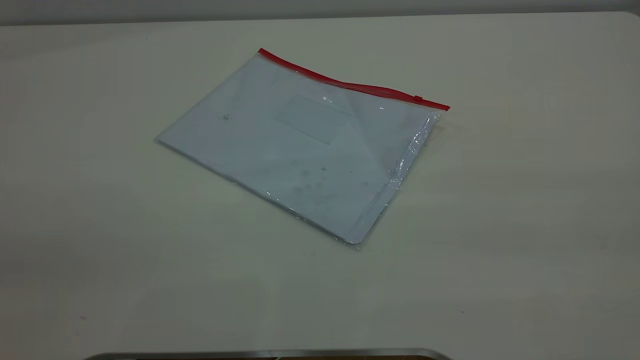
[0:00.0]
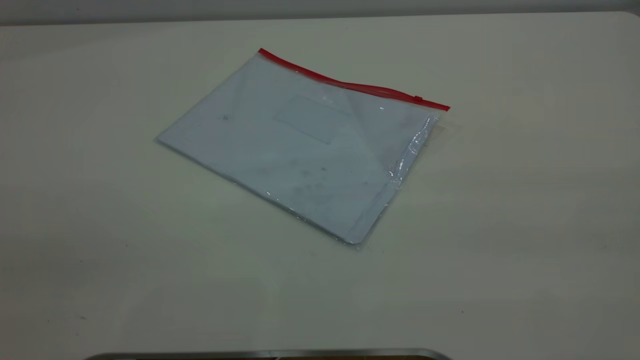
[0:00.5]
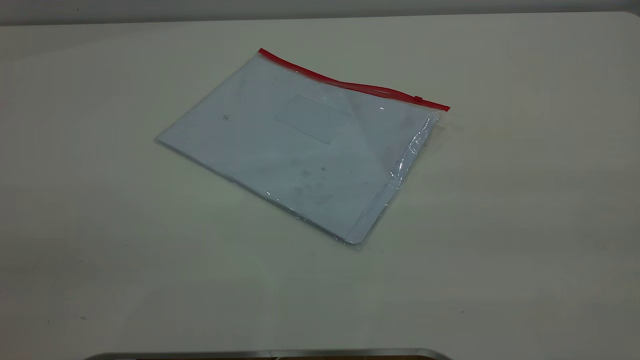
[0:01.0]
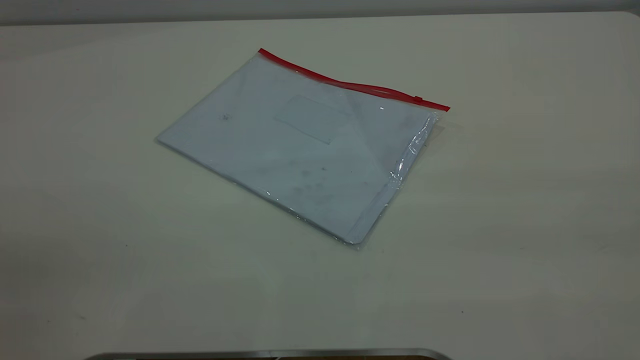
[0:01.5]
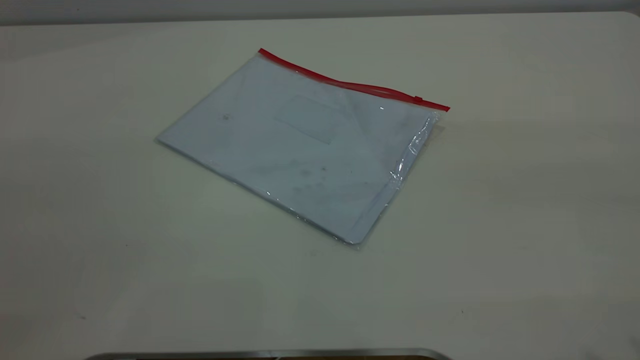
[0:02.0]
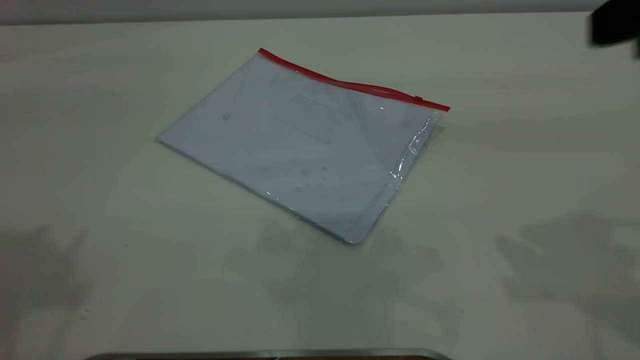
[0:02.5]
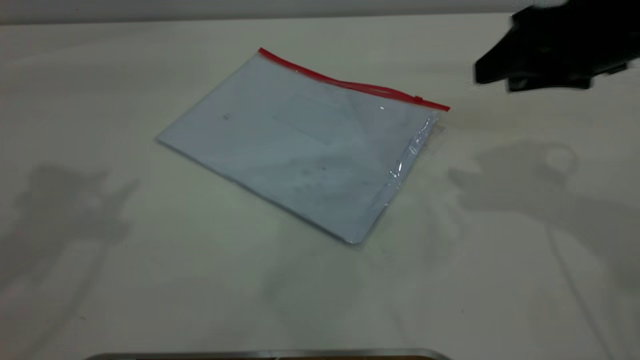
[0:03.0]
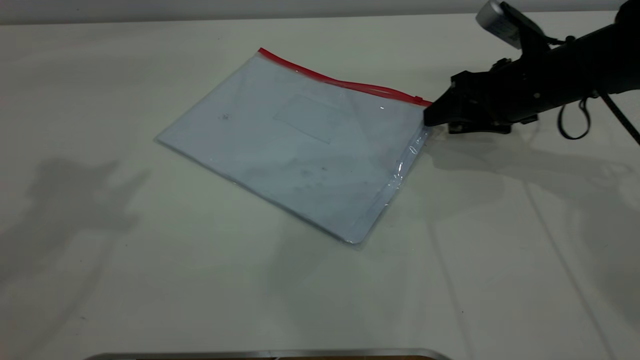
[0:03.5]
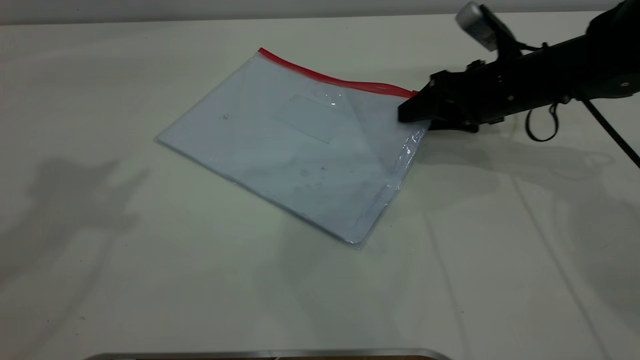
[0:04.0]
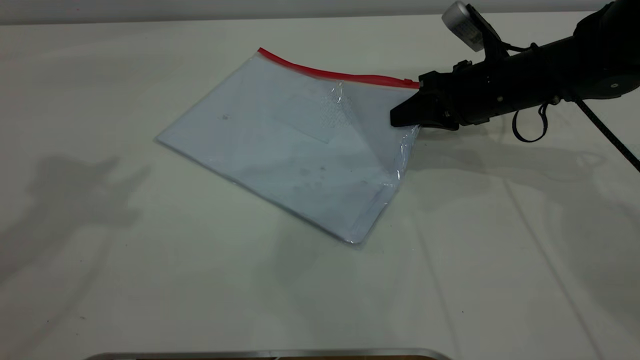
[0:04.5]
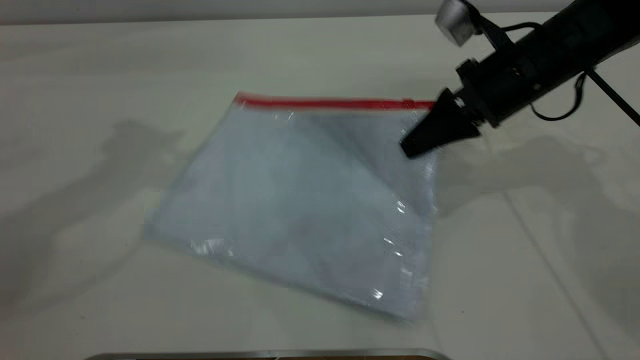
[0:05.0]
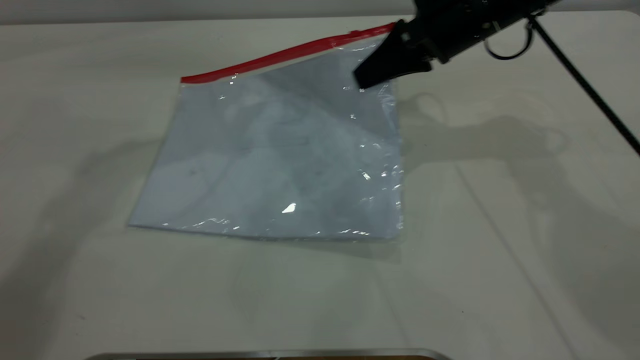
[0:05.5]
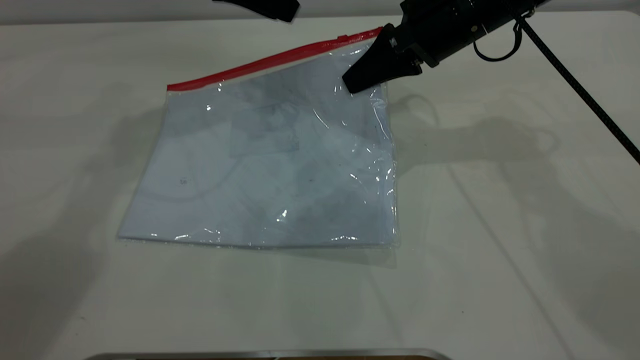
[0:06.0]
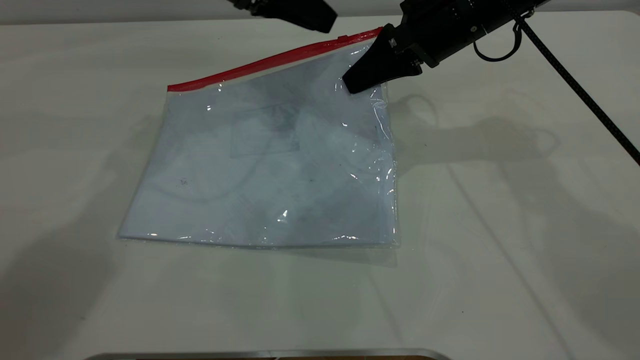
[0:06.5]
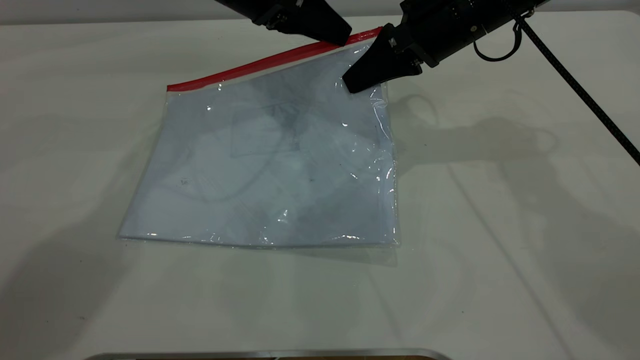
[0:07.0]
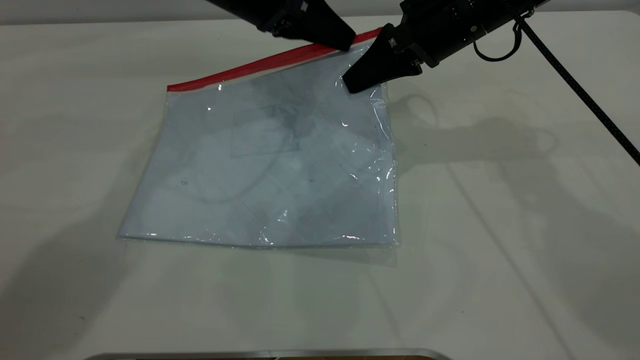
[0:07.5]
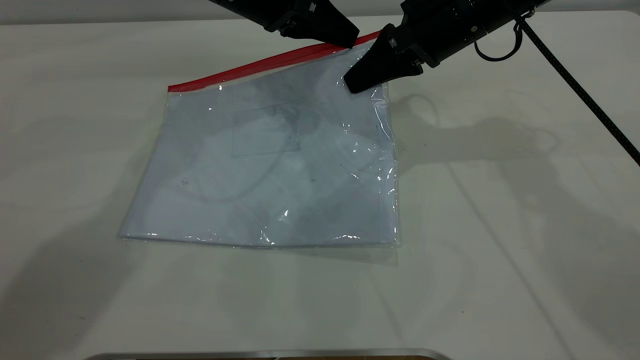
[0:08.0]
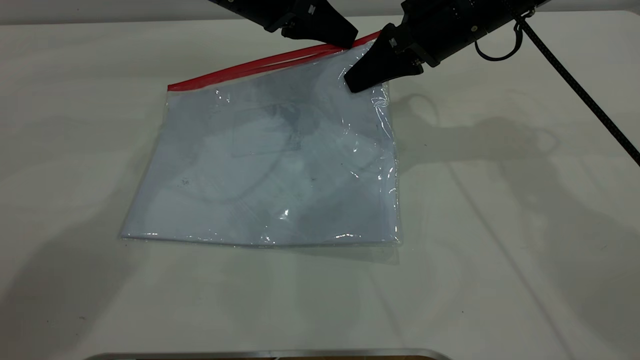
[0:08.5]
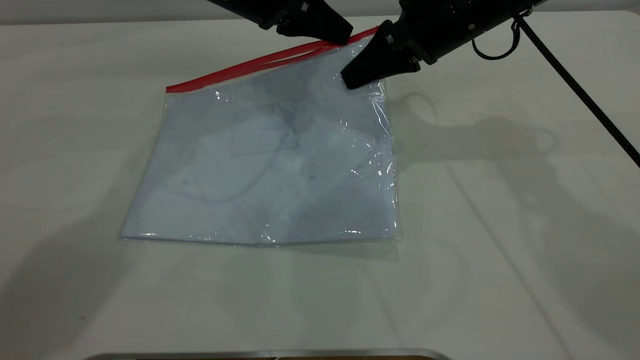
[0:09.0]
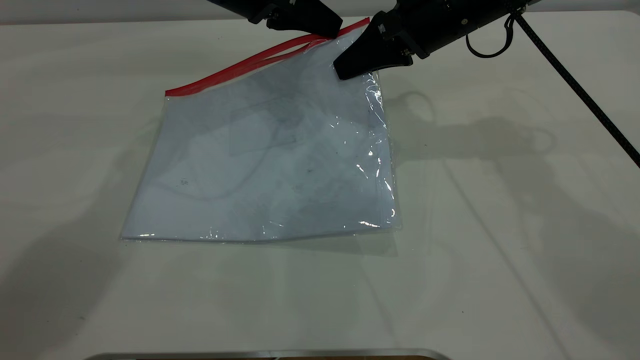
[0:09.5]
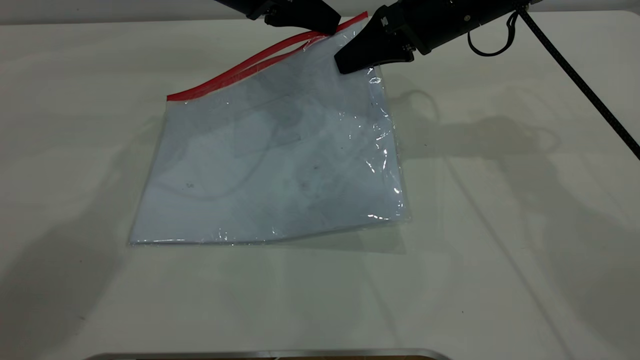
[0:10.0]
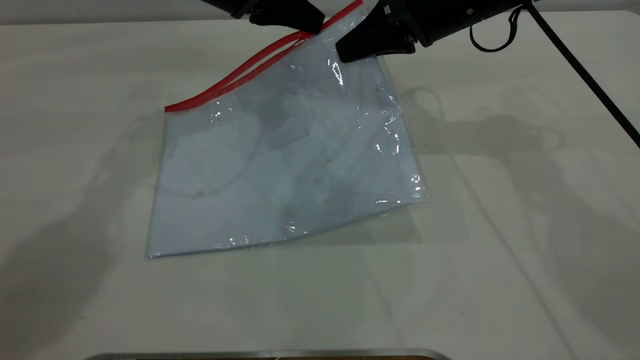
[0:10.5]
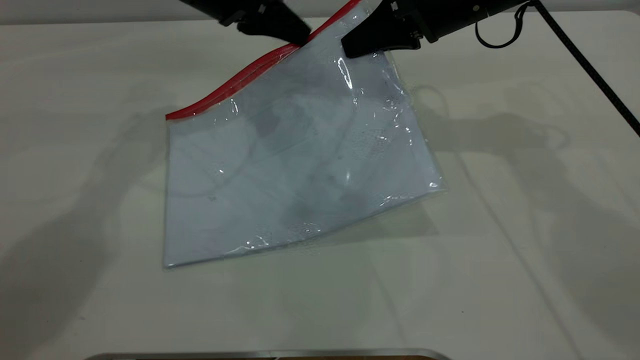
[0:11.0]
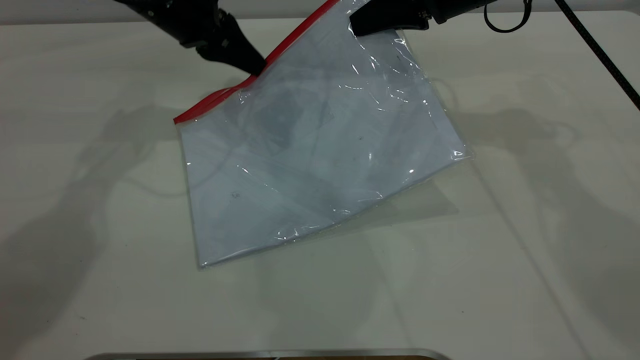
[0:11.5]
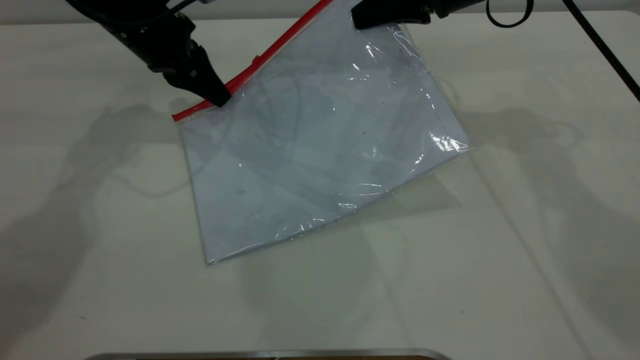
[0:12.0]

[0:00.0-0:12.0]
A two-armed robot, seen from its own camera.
Step, 0:00.0 to 0:05.5: Pick up the transparent plastic bag with the right gripper.
0:02.0 to 0:04.0: The right gripper shifts some 50 cm forward and downward, while the left gripper goes some 25 cm forward.
0:04.0 to 0:06.0: The left gripper travels forward, downward and to the right by some 25 cm. The right gripper goes about 10 cm upward and to the left, and closes up.
0:06.0 to 0:08.0: The left gripper heads to the right, covering some 5 cm, and closes.
0:08.0 to 0:10.0: The grippers make only small movements.
0:10.0 to 0:12.0: The left gripper goes some 10 cm to the left.

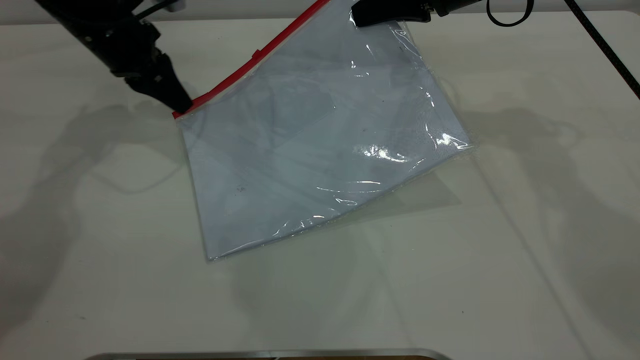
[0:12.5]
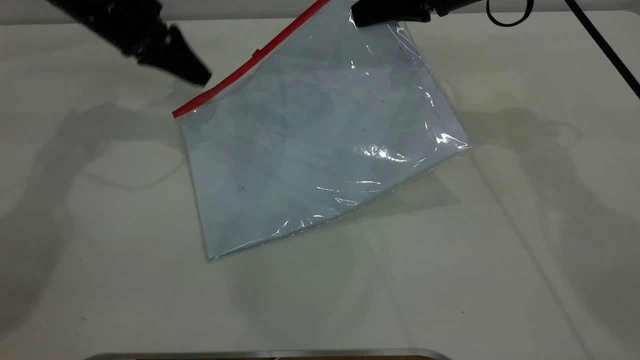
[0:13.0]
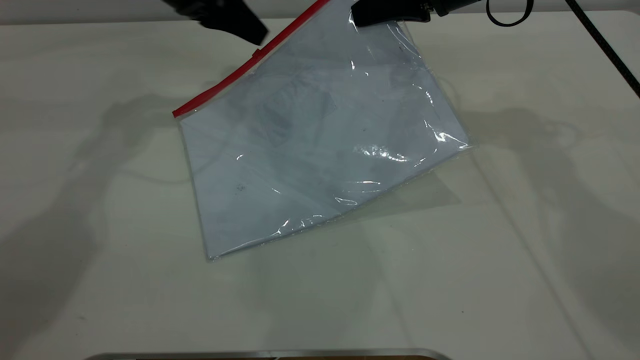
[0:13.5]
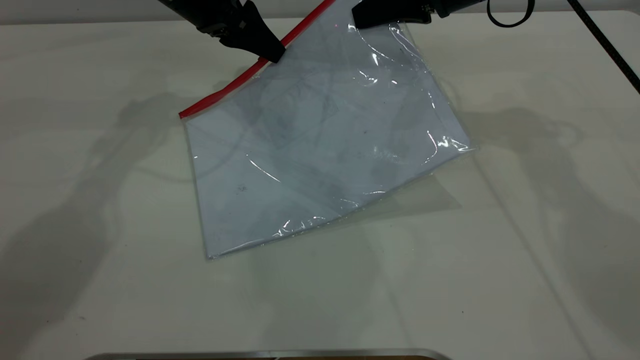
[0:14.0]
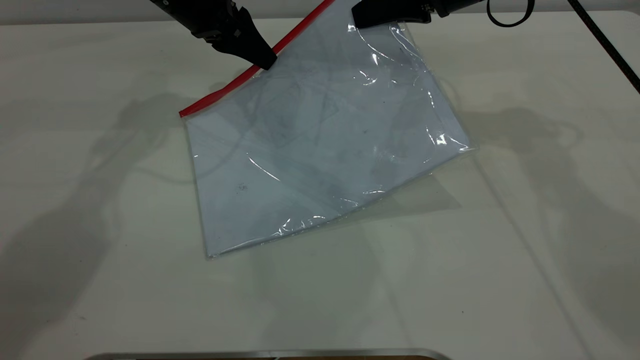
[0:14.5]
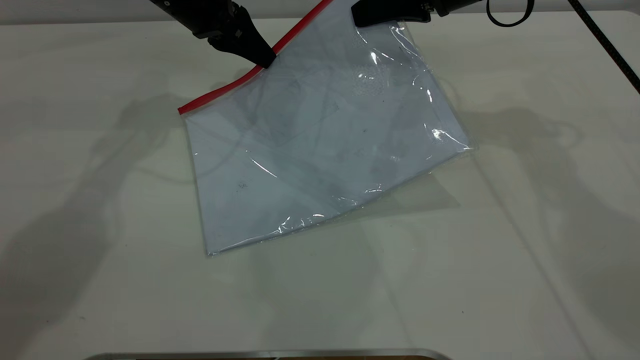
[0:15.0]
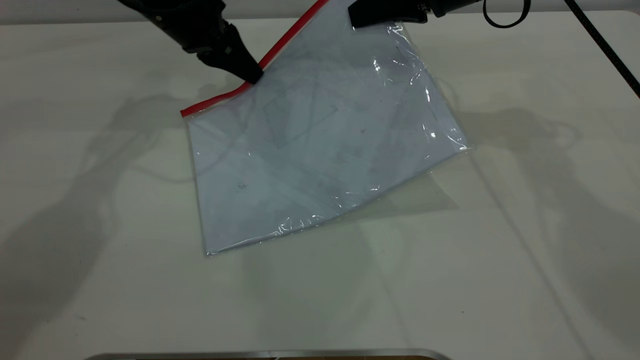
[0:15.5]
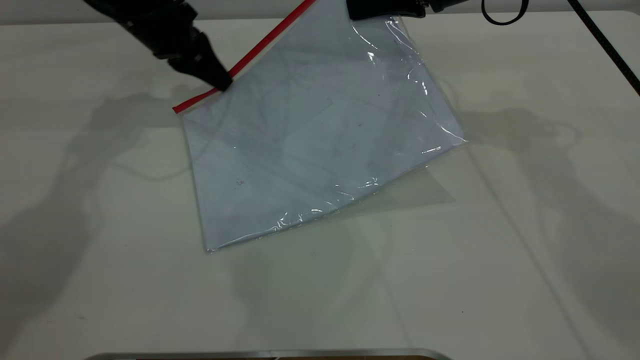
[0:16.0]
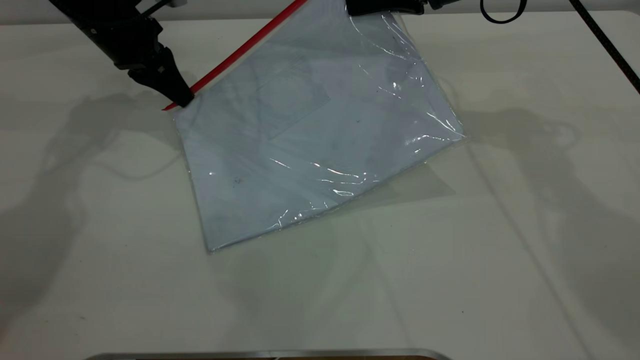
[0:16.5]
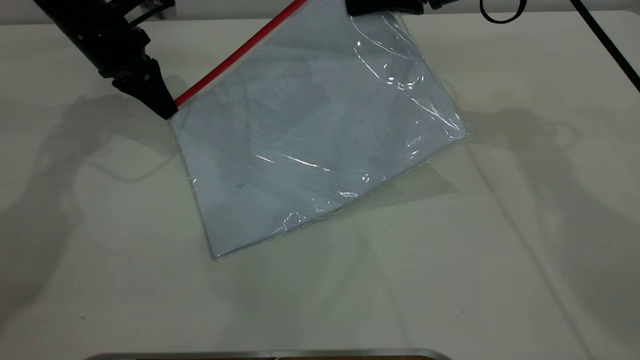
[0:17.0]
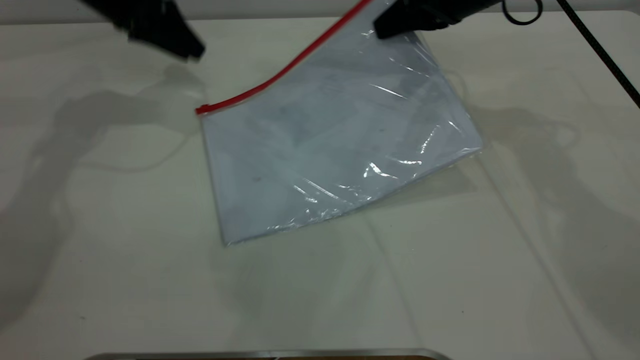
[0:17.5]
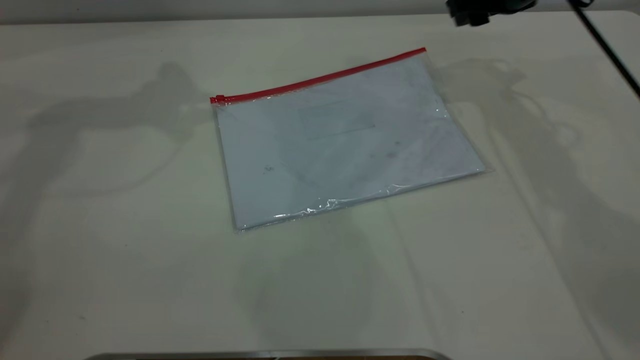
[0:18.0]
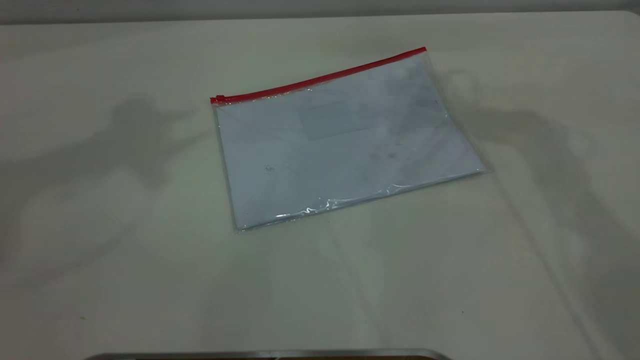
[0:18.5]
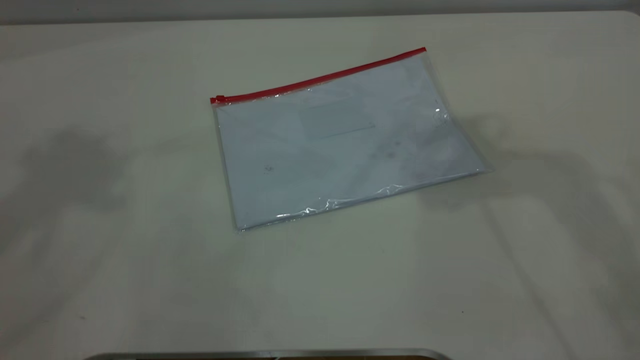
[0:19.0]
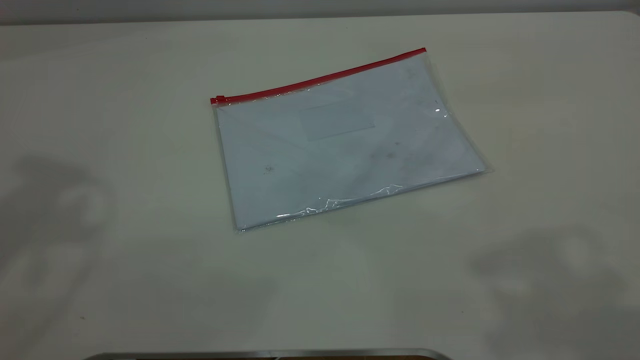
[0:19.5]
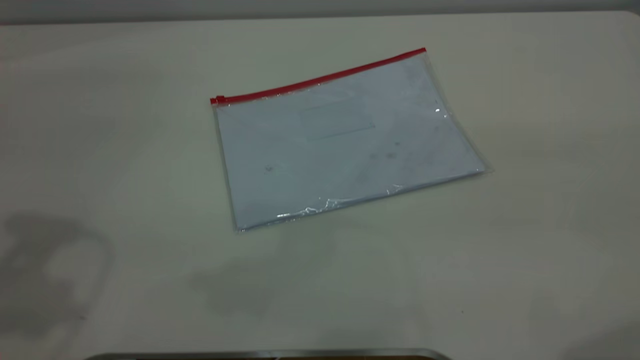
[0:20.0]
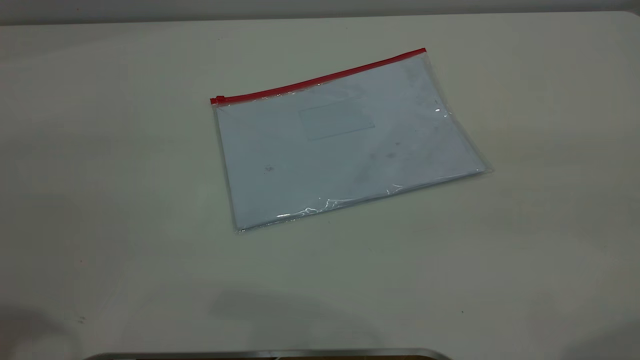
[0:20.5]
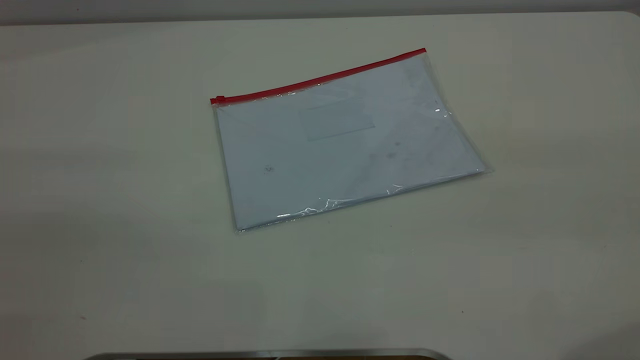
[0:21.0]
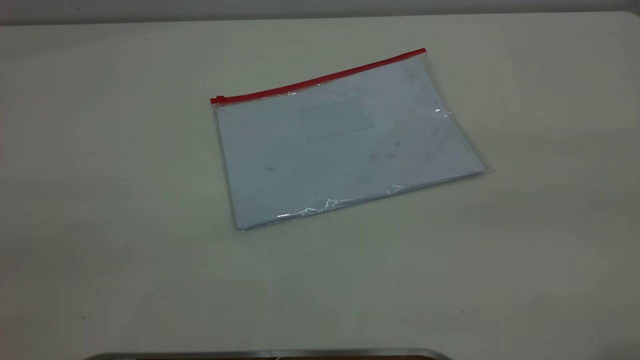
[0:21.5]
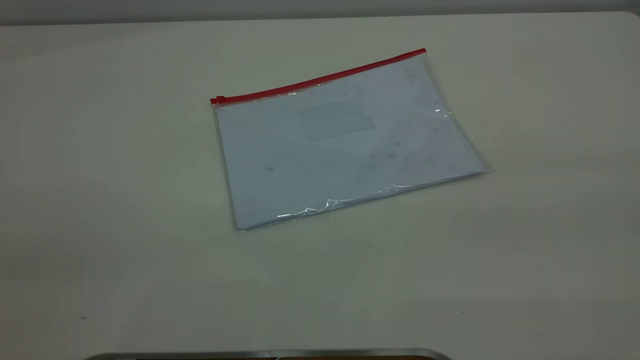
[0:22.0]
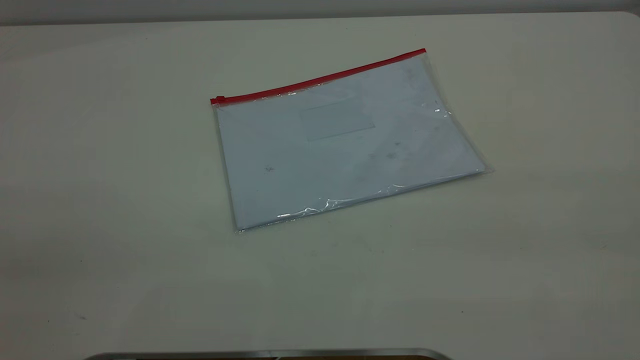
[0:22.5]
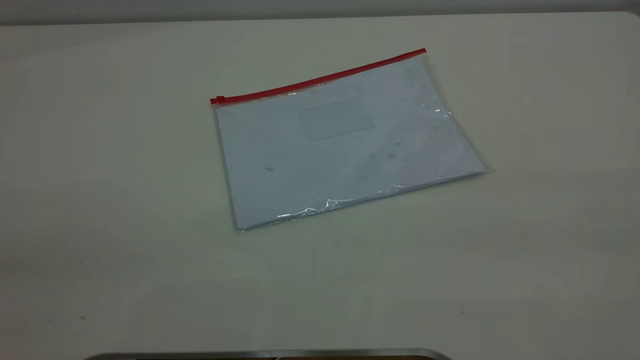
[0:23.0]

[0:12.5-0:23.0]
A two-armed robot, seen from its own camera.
Step, 0:12.5 to 0:17.0: Pulling up the zipper on the transparent plastic bag with the left gripper to close it.
Step, 0:18.0 to 0:18.5: Place the transparent plastic bag.
0:12.5 to 0:14.5: The left gripper moves to the right, approximately 10 cm, and opens.
0:14.5 to 0:16.5: The left gripper shifts some 10 cm to the left, and closes up.
0:16.5 to 0:19.0: The right gripper travels upward and backward by approximately 25 cm, and opens, while the left gripper shifts roughly 50 cm upward and backward, and opens.
